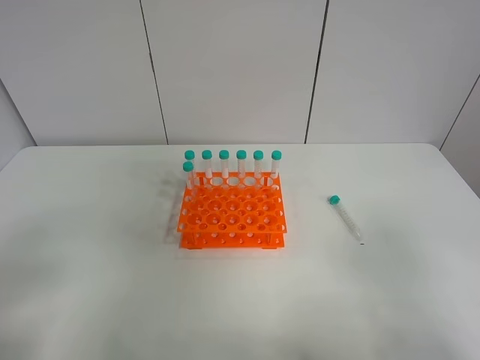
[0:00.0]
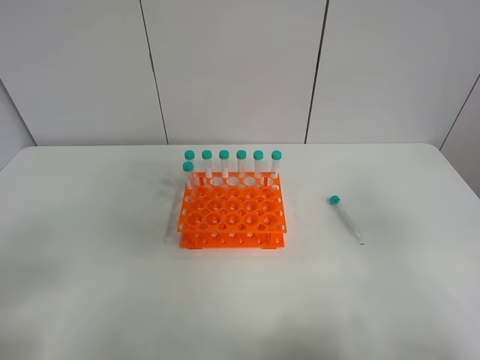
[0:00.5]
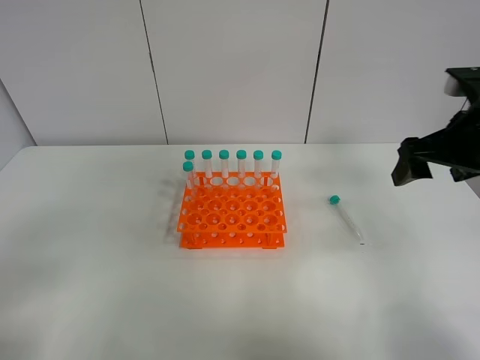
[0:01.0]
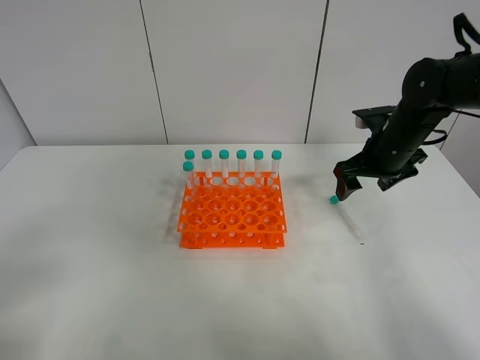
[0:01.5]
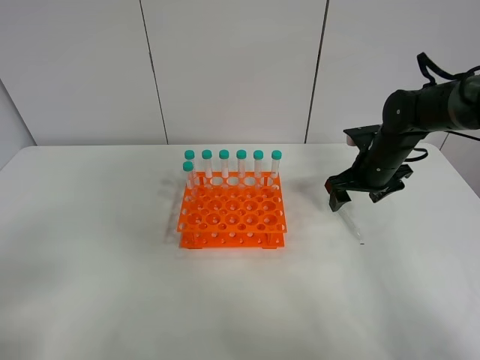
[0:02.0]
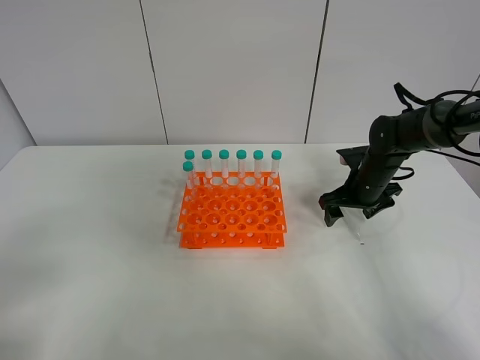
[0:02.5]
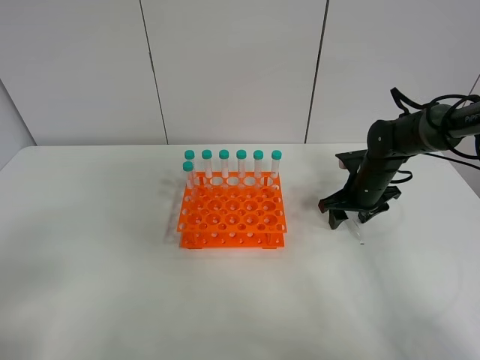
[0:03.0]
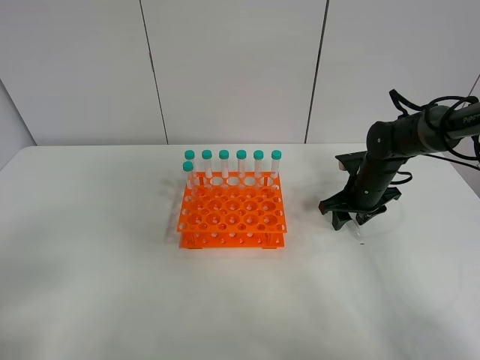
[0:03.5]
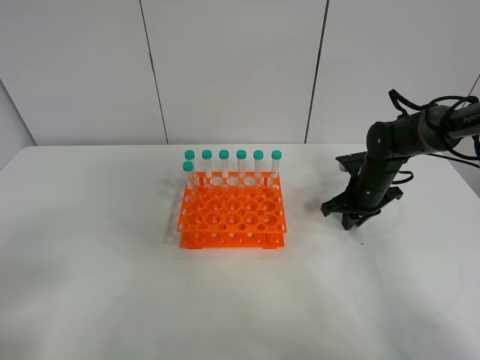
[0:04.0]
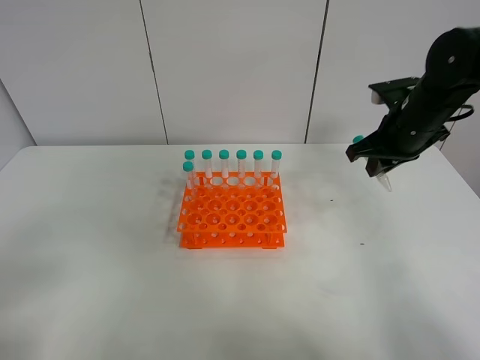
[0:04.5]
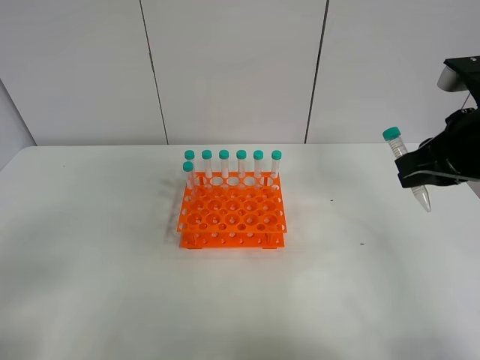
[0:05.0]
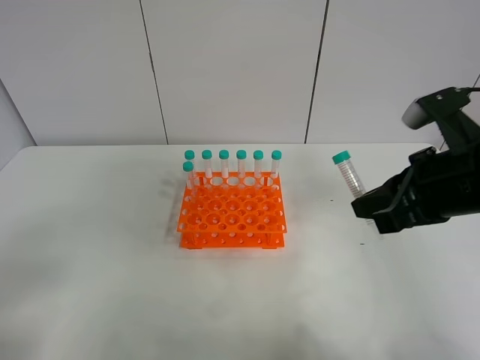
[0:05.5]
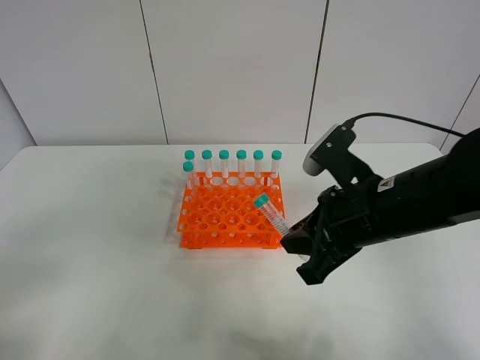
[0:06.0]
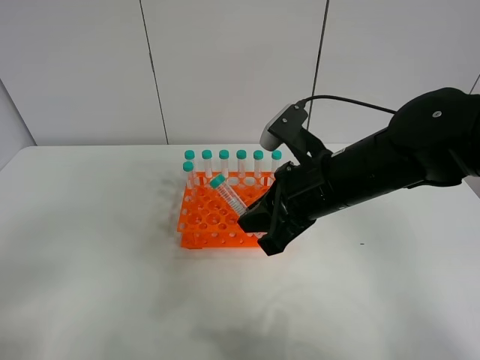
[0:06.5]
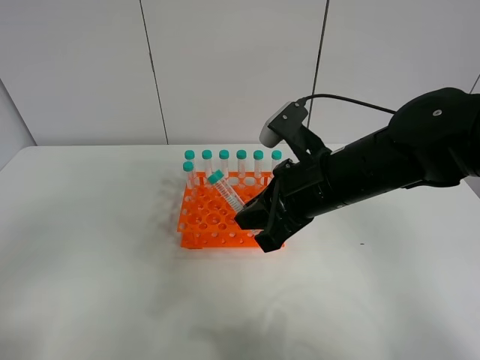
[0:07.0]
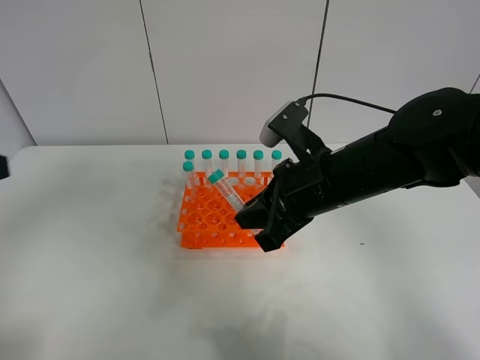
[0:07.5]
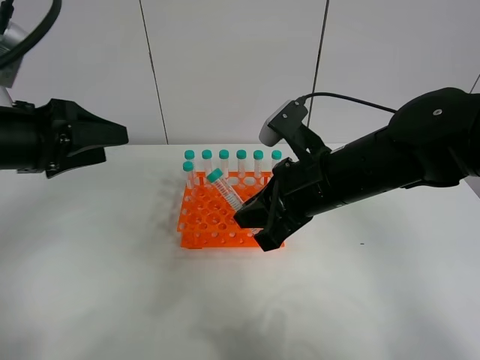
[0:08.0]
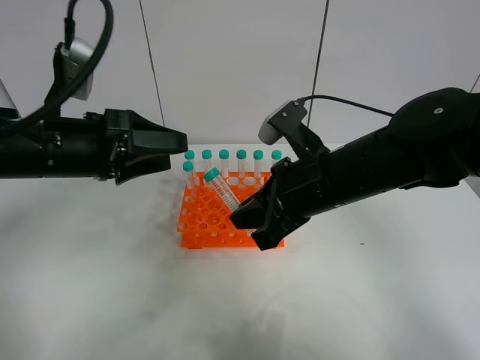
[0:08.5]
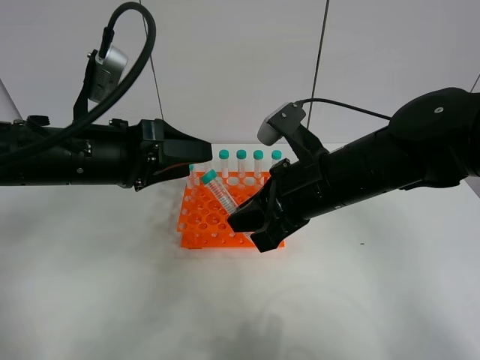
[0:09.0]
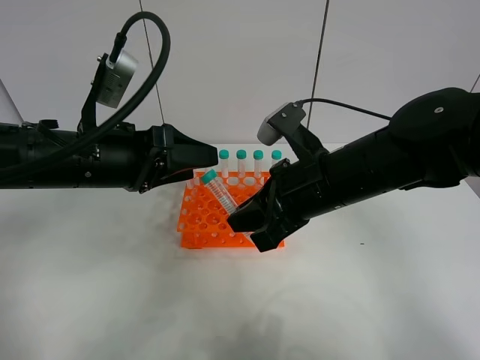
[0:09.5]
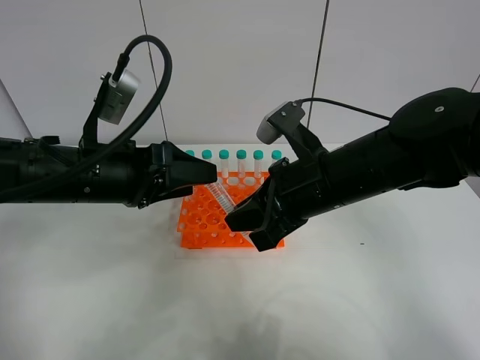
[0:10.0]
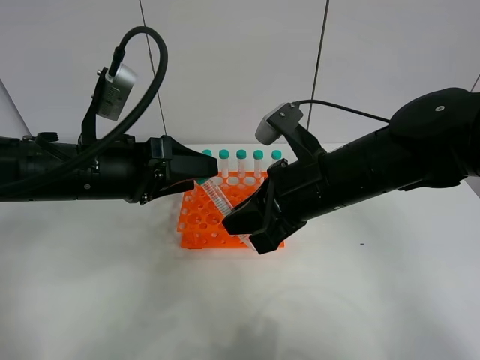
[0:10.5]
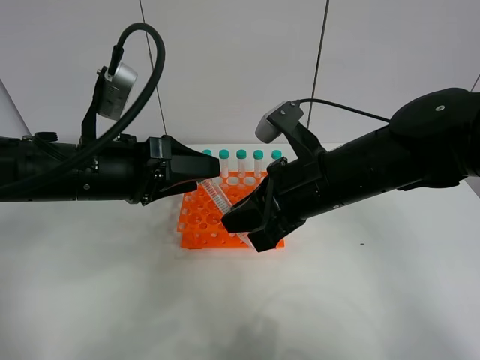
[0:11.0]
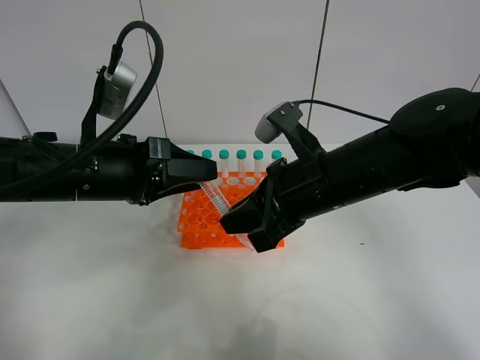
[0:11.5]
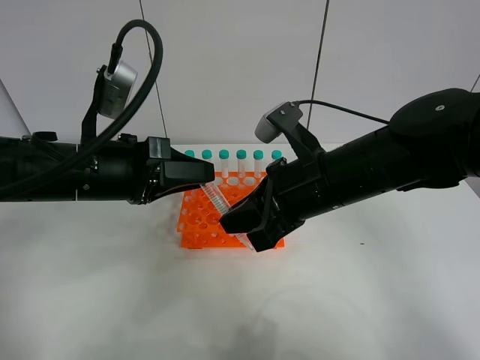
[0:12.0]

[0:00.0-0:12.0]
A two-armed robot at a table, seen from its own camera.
Task of the whole recording: Put the test tube on the table back onto the test tube rack.
Step, 0:00.0 to 0:04.0: Pick up the test tube with the right gripper.
0:00.0 to 0:02.0: The right gripper shifts roughly 40 cm forward.
0:02.0 to 0:04.0: The right gripper closes.
0:04.0 to 0:06.0: The right gripper goes some 25 cm backward, upward and to the left.
0:06.0 to 0:08.0: The right gripper ends up approximately 5 cm from where it was, while the left gripper goes some 25 cm forward.
0:08.0 to 0:10.0: The left gripper heads to the right, covering about 10 cm.
0:10.0 to 0:12.0: The left gripper closes up.

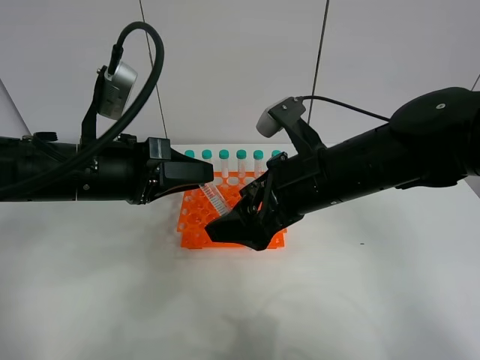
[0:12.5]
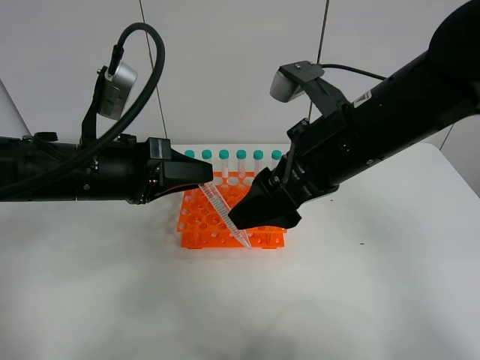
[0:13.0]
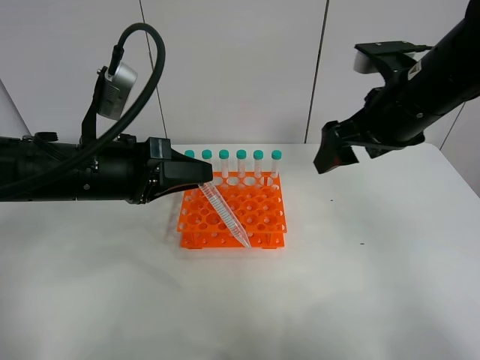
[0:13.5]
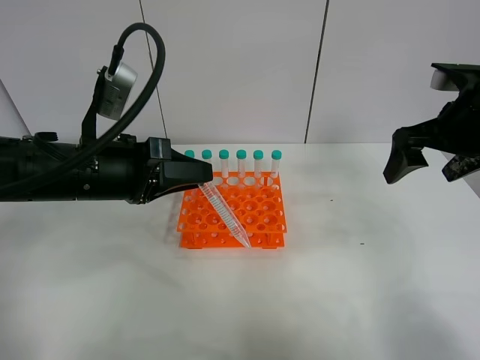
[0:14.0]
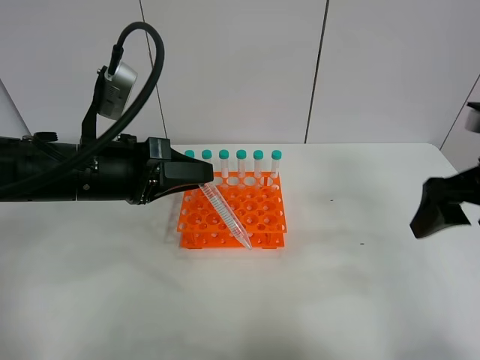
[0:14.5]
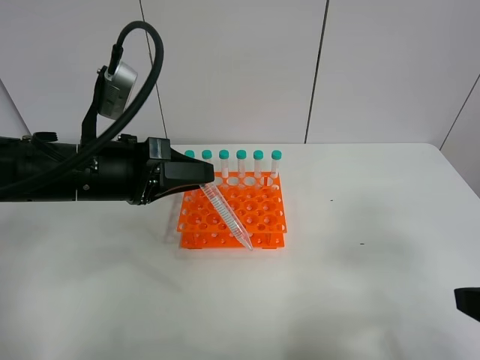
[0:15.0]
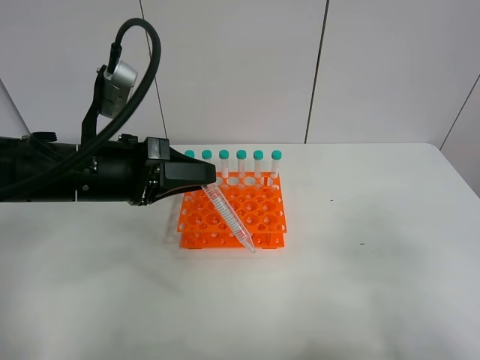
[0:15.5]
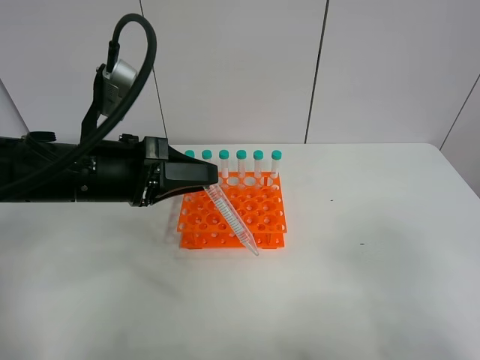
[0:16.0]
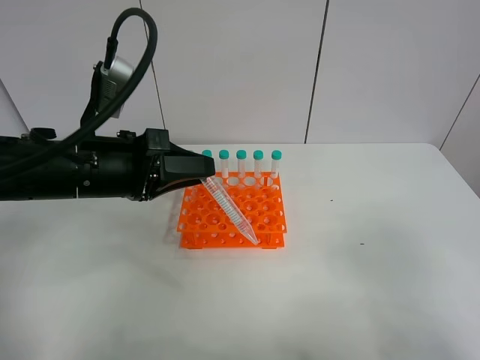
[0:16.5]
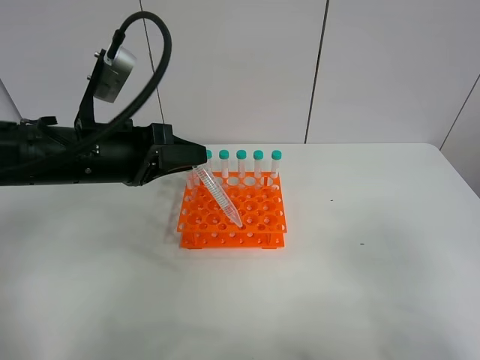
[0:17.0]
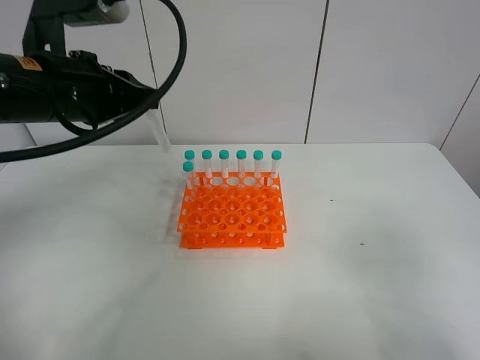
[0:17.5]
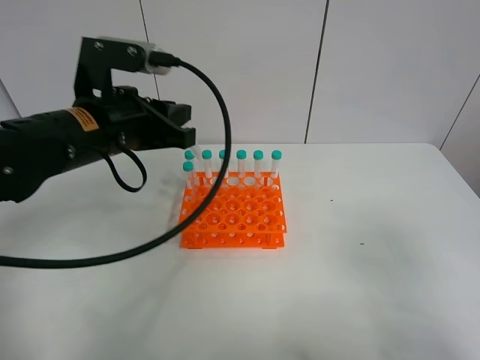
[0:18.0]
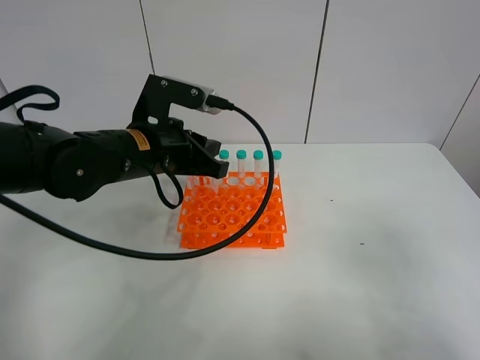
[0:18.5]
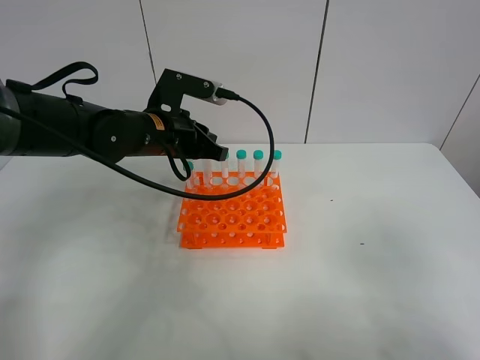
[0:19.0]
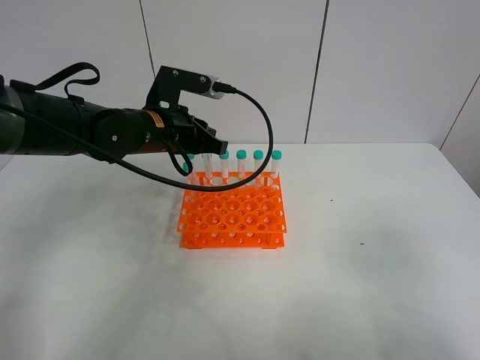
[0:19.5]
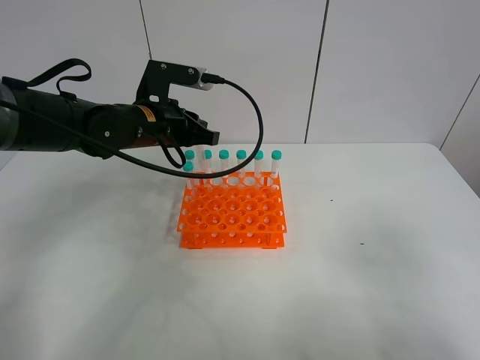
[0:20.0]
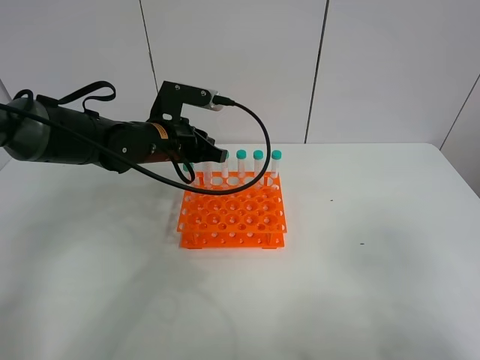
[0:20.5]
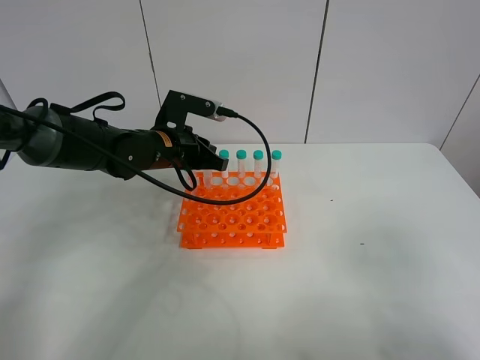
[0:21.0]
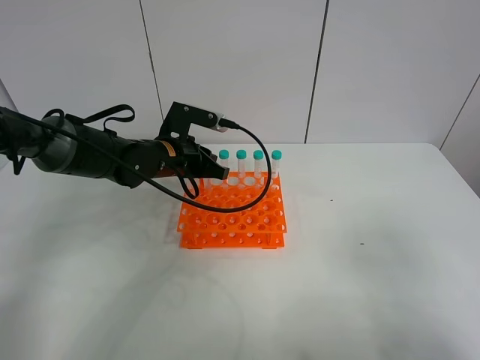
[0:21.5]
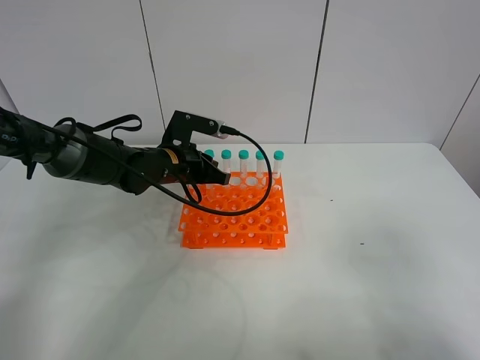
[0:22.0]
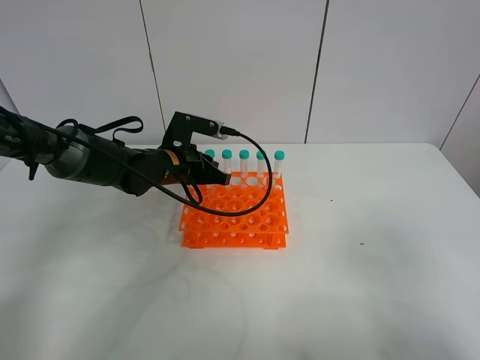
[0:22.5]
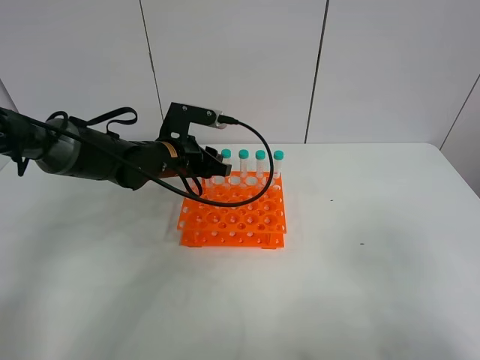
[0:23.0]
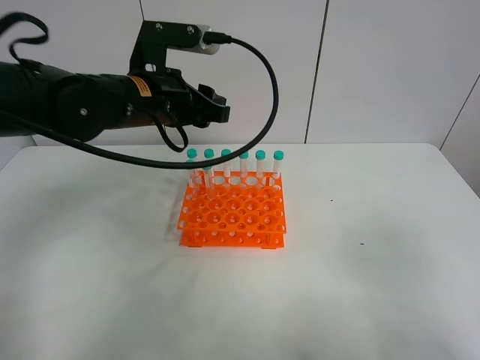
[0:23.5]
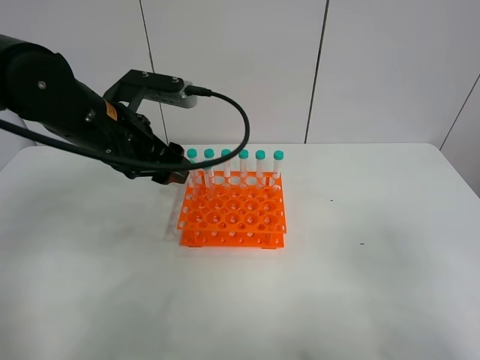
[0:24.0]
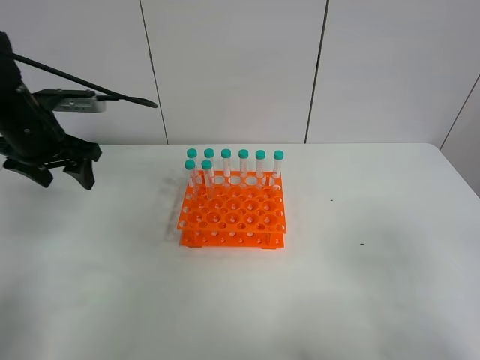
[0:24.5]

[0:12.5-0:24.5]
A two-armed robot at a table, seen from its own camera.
Task of the whole recording: Put the test tube on the table back onto the test tube rack.
Step, 0:12.5 to 0:22.5: Place the test tube on the test tube rack with the left gripper.
0:12.5 to 0:14.5: The right gripper travels to the right by some 20 cm.
0:14.5 to 0:16.5: The right gripper travels backward by about 20 cm.
0:16.5 to 0:18.5: The left gripper shifts roughly 10 cm forward and to the right, and travels upward and back again, approximately 10 cm each way.
0:18.5 to 0:20.5: The left gripper heads forward, covering some 5 cm.
0:20.5 to 0:22.5: The left gripper goes roughly 5 cm downward.
0:22.5 to 0:24.5: The left gripper moves to the left and upward, roughly 20 cm, and opens its fingers.

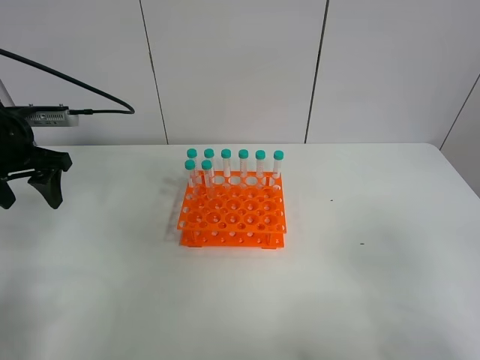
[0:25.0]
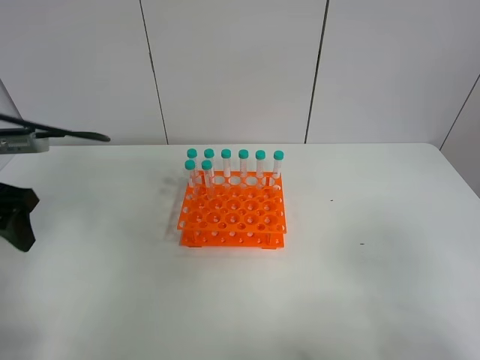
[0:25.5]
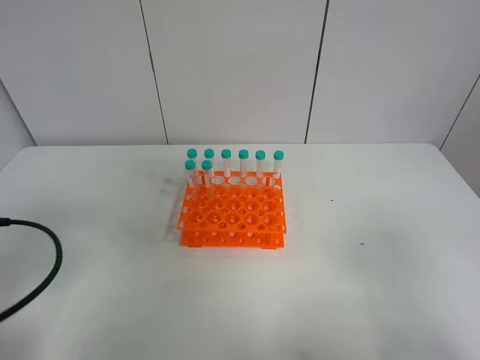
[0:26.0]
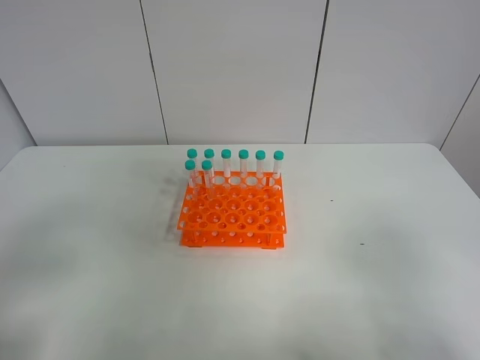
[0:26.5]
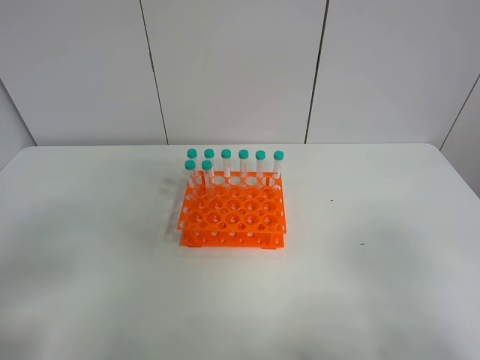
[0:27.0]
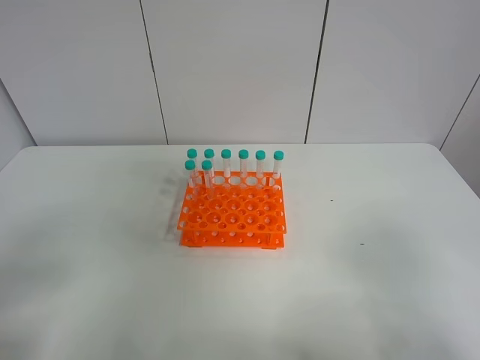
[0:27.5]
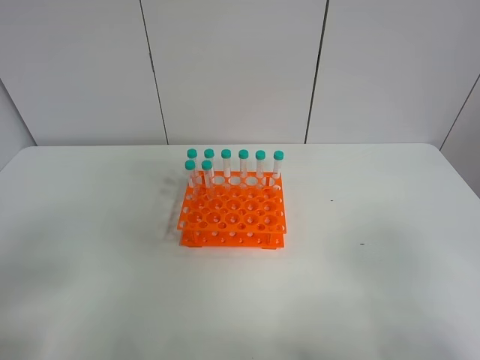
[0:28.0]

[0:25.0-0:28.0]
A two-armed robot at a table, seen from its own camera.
Task of the whole recording: Put the test tube on the table back onto the test tube rack.
0:25.0 to 0:26.5: The left gripper is displaced backward by roughly 30 cm.
